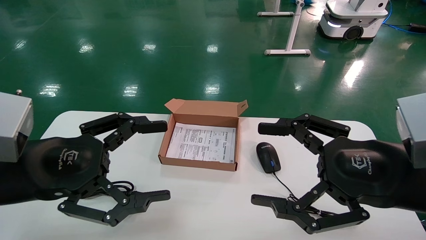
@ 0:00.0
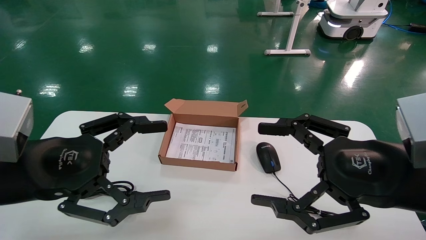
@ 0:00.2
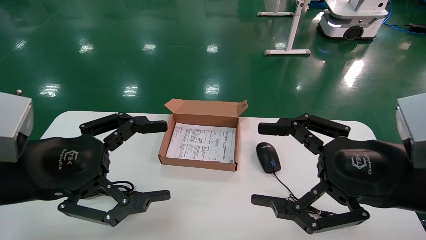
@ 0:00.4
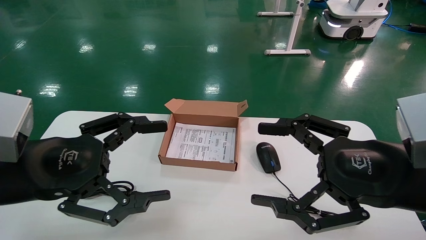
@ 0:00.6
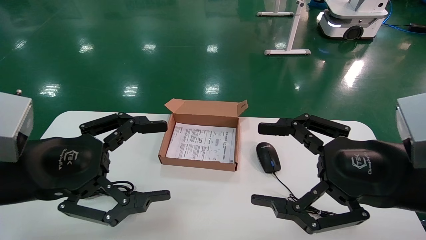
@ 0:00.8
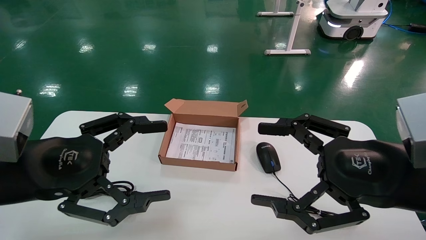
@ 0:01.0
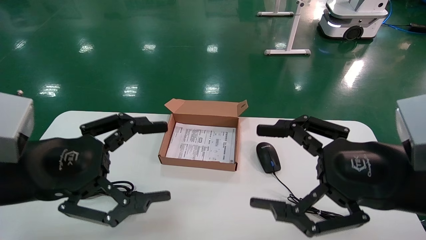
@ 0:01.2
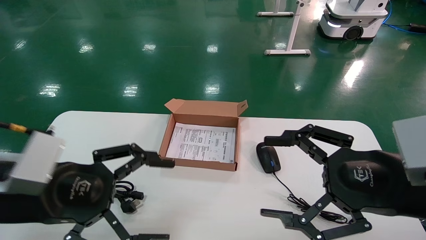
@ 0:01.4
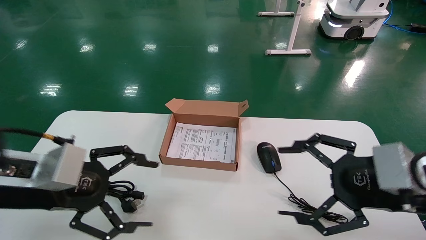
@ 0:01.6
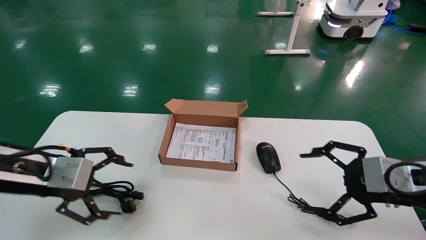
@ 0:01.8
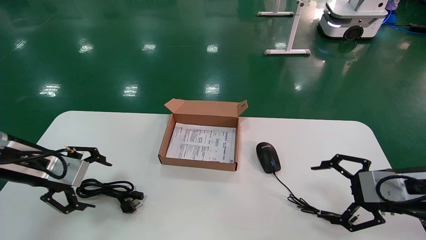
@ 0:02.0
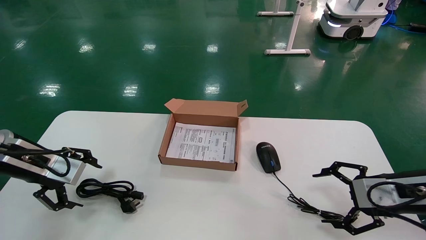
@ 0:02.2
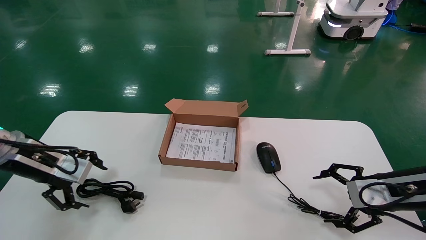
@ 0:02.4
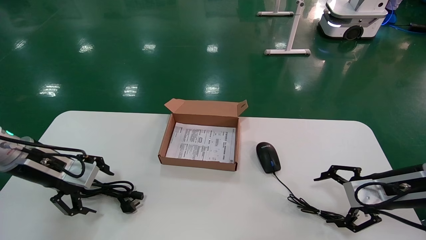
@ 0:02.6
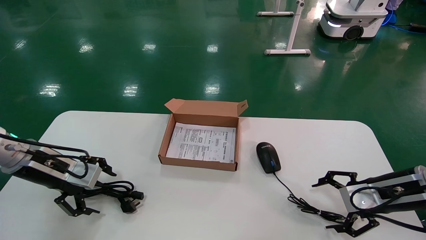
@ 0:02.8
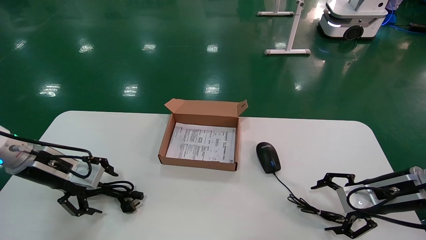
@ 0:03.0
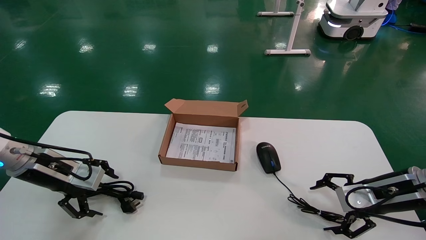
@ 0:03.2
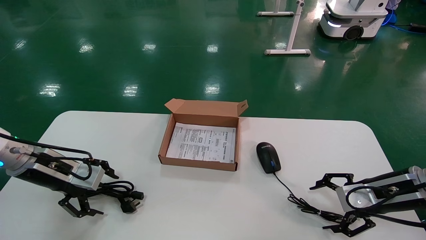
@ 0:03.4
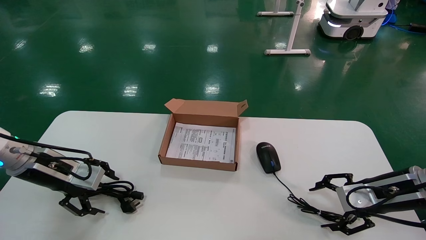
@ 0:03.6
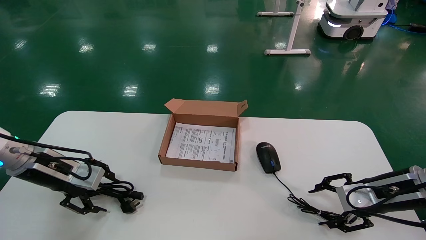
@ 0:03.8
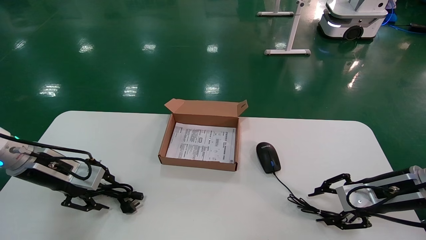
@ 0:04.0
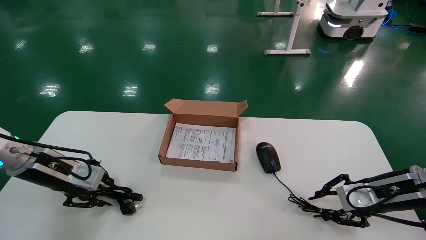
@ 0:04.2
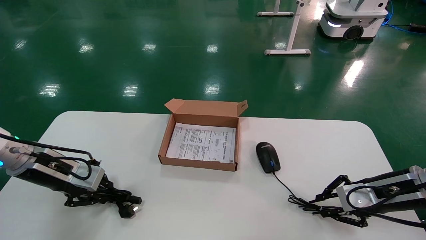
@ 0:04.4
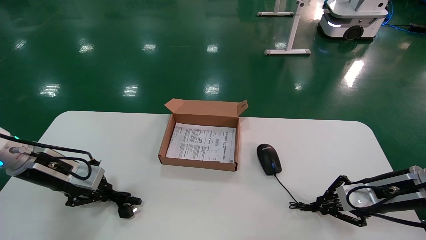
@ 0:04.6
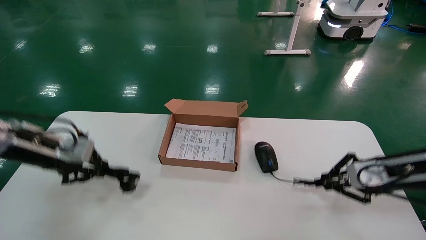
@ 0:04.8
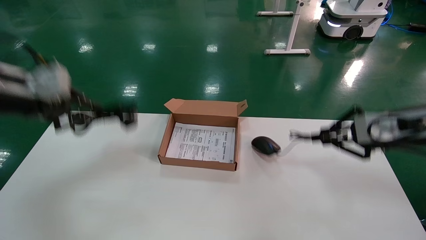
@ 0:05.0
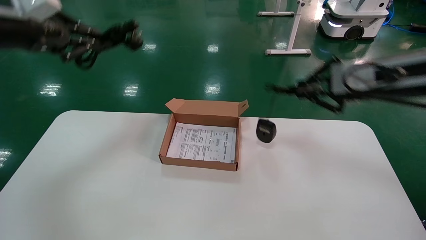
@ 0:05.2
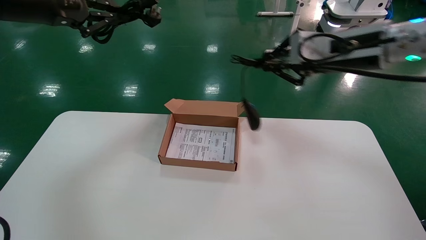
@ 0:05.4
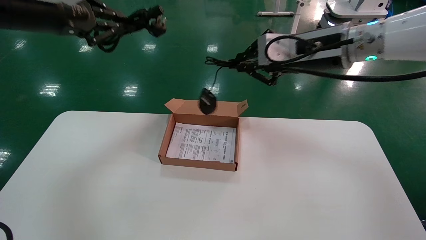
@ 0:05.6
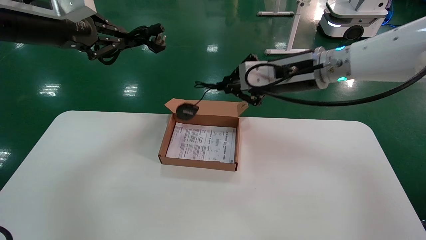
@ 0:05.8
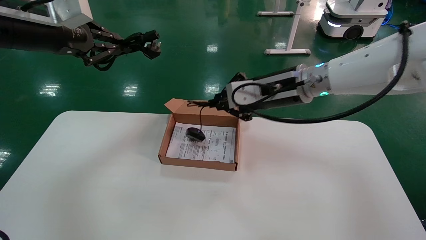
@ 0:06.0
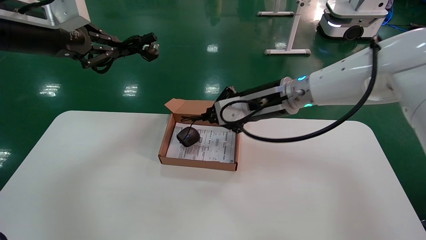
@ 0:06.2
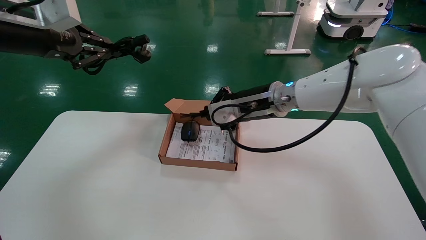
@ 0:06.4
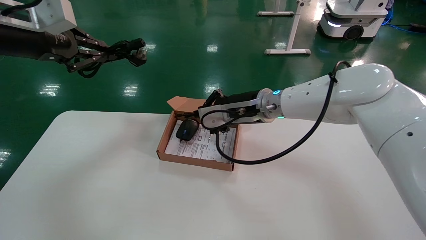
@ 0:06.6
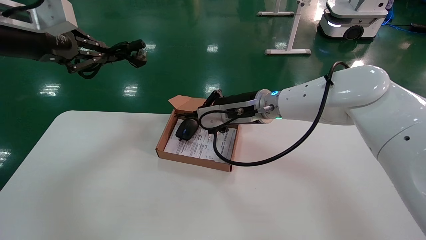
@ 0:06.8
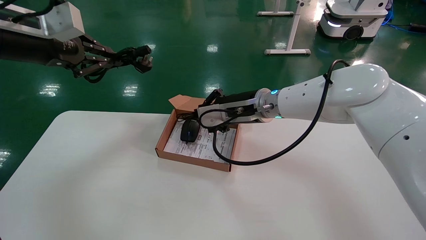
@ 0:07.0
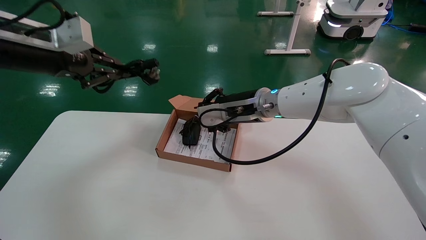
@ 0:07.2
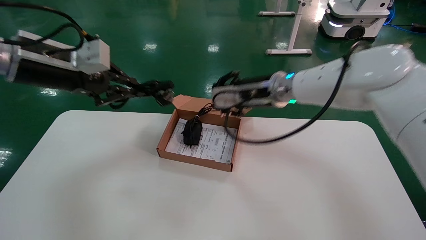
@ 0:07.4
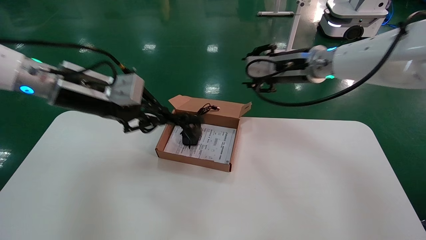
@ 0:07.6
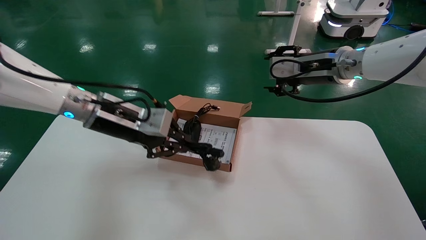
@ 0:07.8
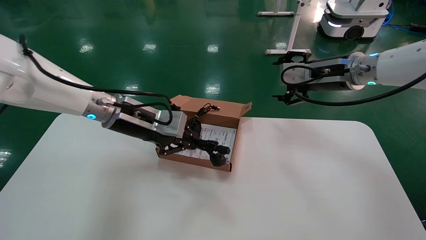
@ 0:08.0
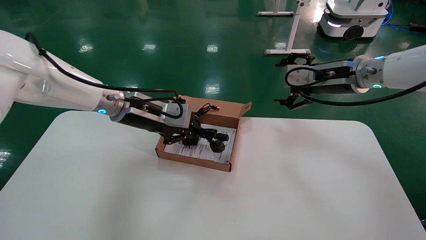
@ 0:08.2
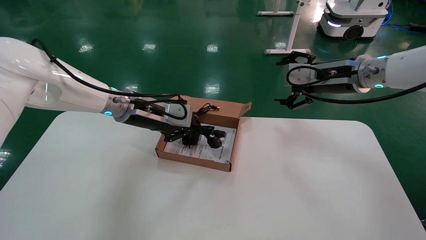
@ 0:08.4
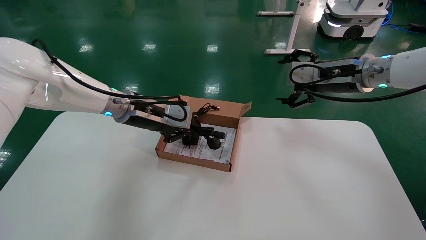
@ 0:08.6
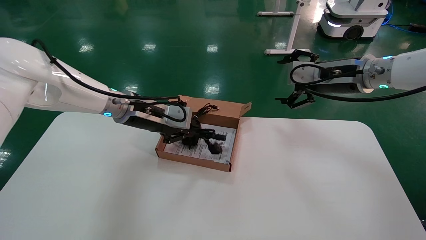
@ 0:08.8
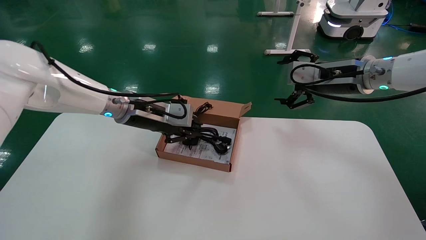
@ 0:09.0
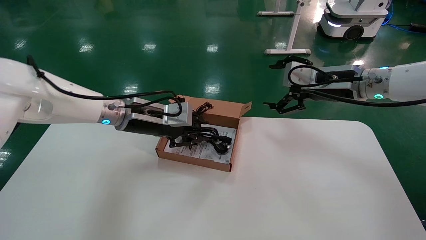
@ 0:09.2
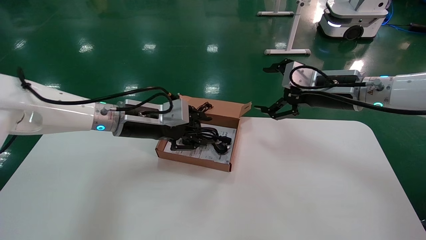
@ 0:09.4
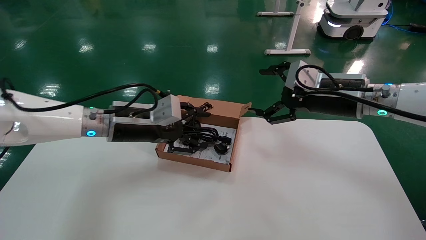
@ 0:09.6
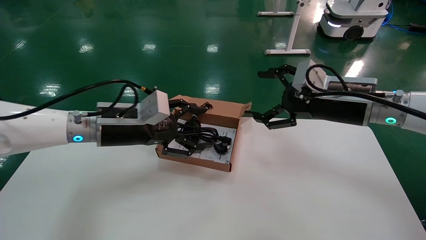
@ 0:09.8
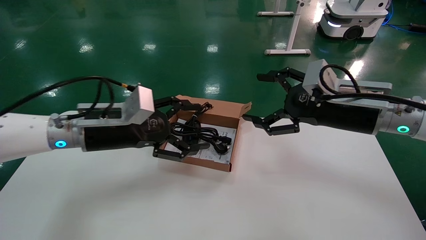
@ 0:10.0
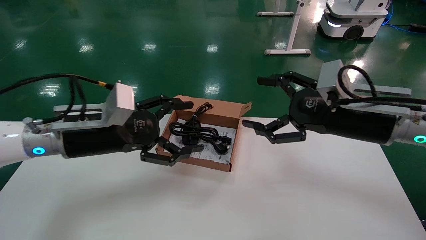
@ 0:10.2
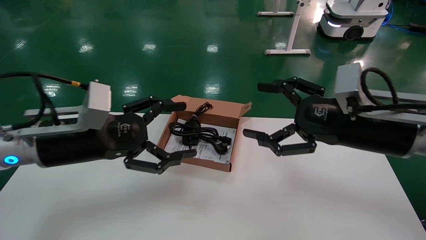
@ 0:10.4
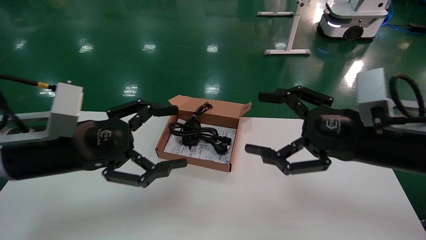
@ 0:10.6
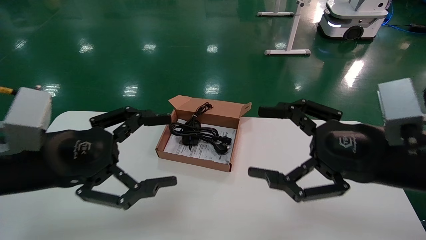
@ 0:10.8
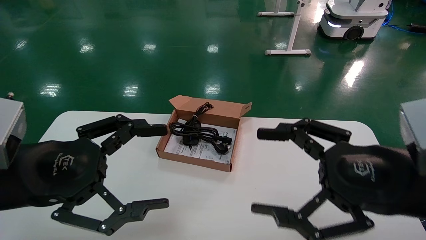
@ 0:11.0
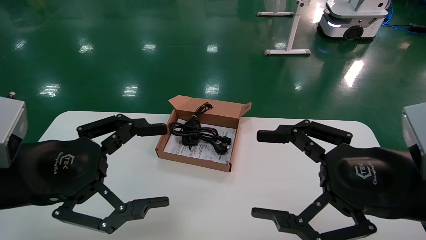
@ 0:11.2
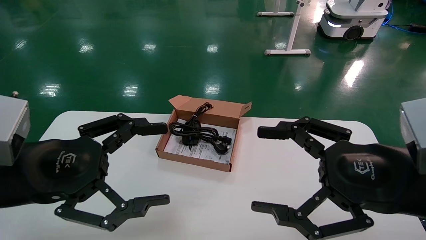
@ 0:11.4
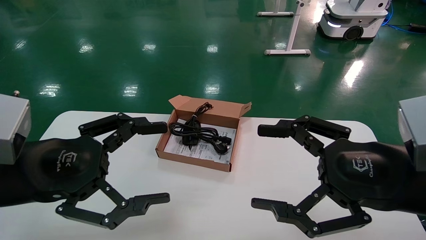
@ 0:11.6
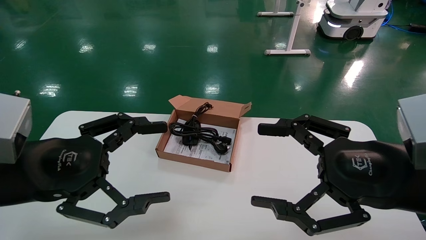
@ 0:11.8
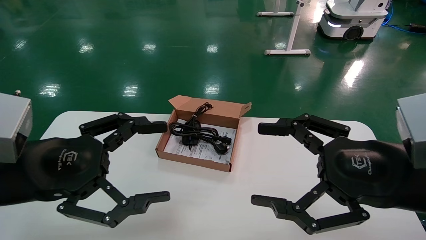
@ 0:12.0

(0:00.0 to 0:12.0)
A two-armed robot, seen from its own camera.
Step, 0:01.6 - 0:04.8: Grab and lift both the mouse and power cord from the accessory packaging area at the same time.
Step, 0:05.0 - 0:09.8: Place the mouse and power cord into the box.
0:00.0 - 0:01.6: The right gripper shifts by about 5 cm.
0:01.6 - 0:03.0: The right gripper travels forward, downward and to the right by roughly 15 cm, while the left gripper moves forward, to the left and downward, about 15 cm.
0:03.0 - 0:04.4: The right gripper closes. The left gripper closes its fingers.
0:04.4 - 0:06.0: The right gripper goes approximately 30 cm to the left and upward. Meanwhile the left gripper travels upward by approximately 25 cm.
0:06.0 - 0:07.6: The right gripper ends up roughly 5 cm from where it was, and opens up. Meanwhile the left gripper travels downward and to the right by about 15 cm.
0:07.6 - 0:09.0: The right gripper travels to the right by about 10 cm, and opens up. Meanwhile the left gripper heads to the right, downward and forward, covering roughly 10 cm.
0:09.0 - 0:10.4: The left gripper shifts about 15 cm backward and to the left, and opens up. Meanwhile the right gripper shifts about 15 cm backward.
0:10.4 - 0:12.0: The grippers both shift backward by roughly 10 cm.

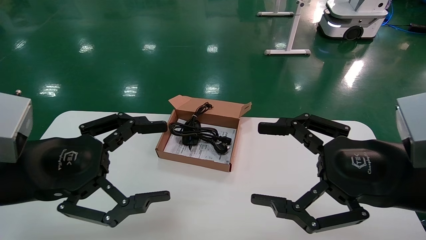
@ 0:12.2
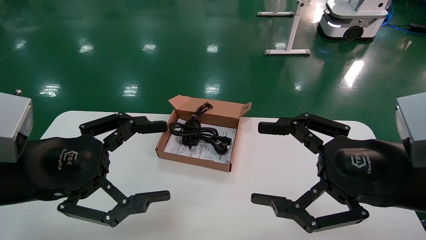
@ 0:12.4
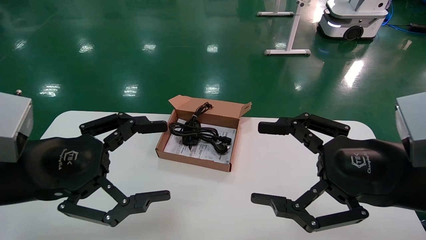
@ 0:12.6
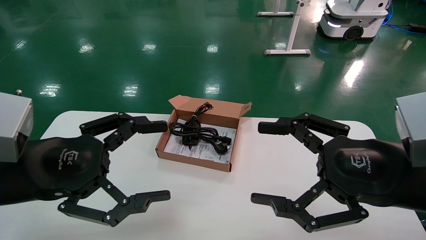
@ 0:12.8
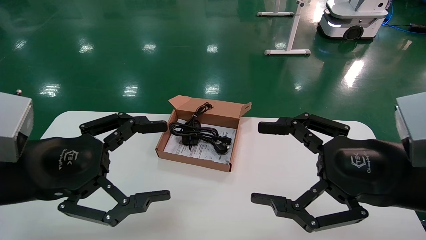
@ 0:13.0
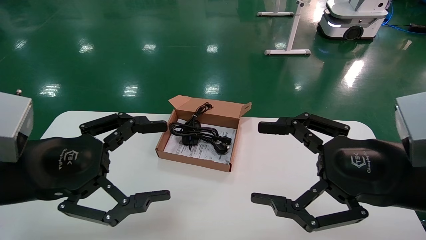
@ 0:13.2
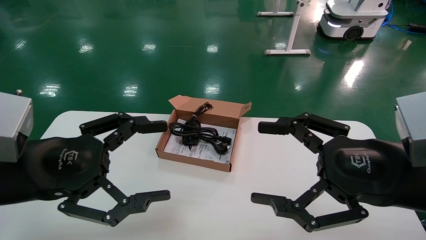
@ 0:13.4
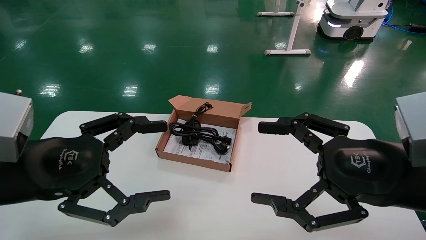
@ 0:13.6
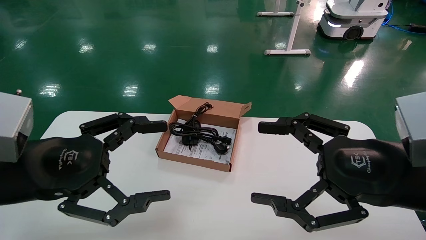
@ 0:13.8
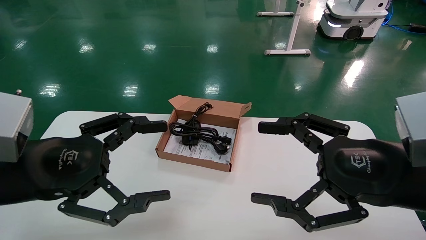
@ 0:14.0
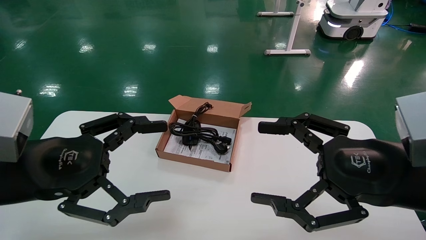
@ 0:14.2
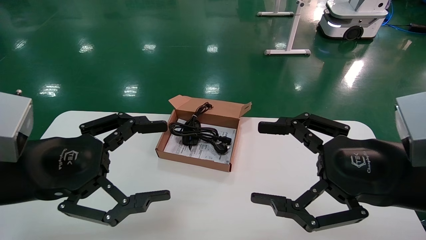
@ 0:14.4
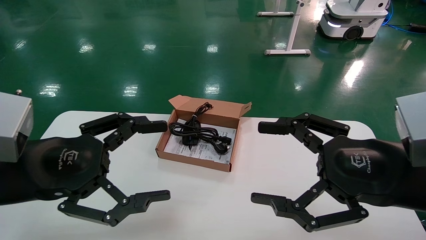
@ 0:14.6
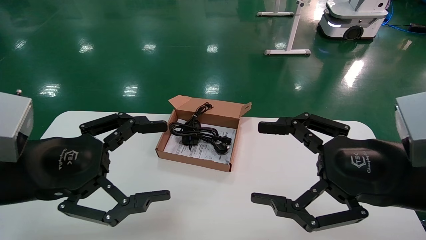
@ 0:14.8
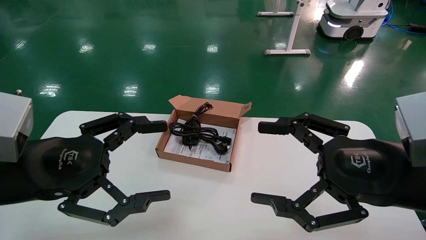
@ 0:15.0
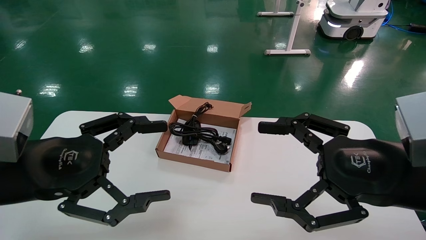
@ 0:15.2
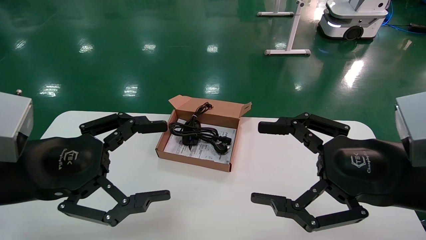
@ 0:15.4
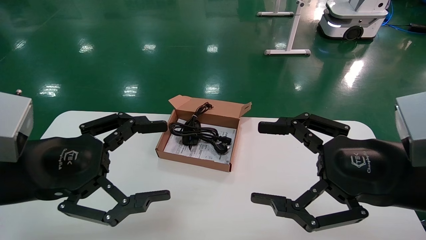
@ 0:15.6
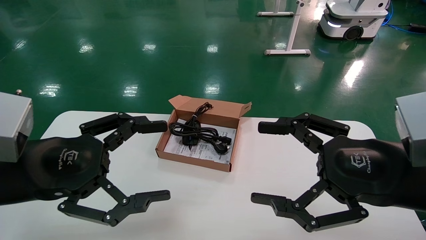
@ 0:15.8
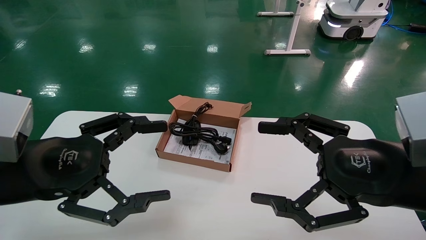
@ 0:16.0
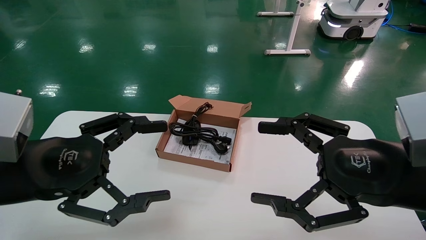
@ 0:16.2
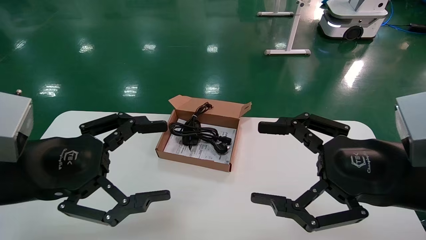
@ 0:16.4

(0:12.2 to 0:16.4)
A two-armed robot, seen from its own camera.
0:12.2 - 0:16.4: Both grippers stay put.
